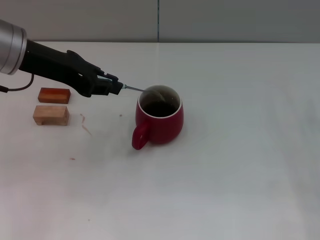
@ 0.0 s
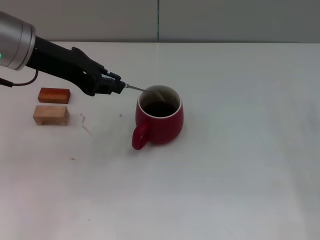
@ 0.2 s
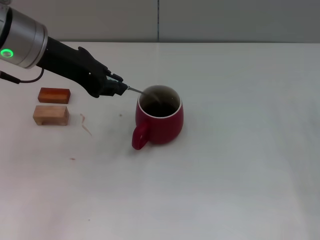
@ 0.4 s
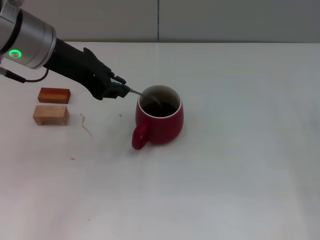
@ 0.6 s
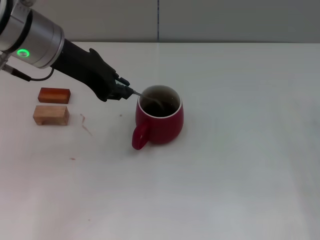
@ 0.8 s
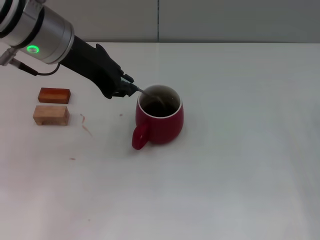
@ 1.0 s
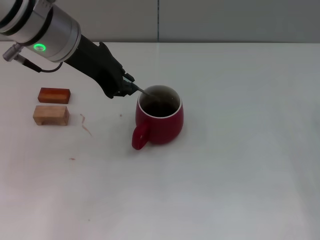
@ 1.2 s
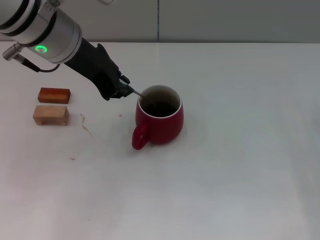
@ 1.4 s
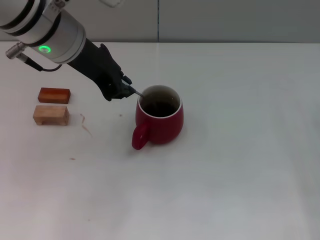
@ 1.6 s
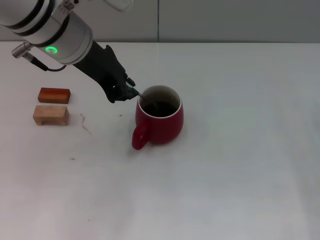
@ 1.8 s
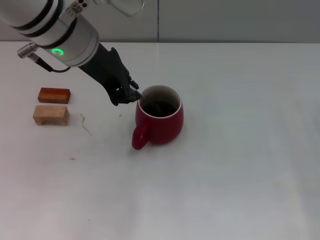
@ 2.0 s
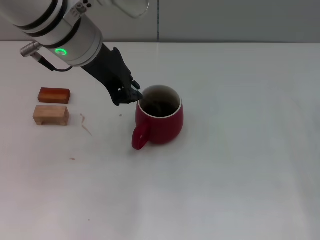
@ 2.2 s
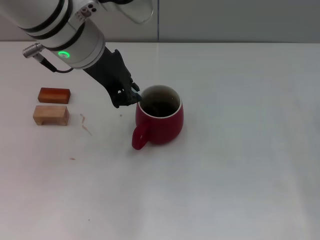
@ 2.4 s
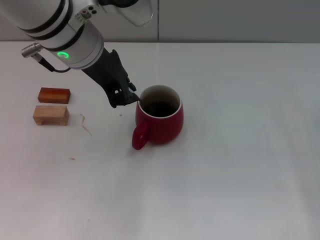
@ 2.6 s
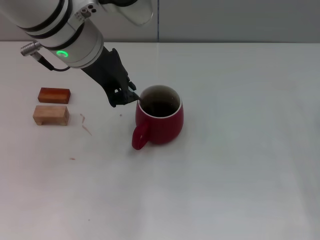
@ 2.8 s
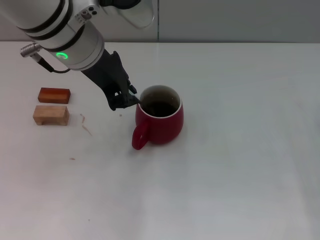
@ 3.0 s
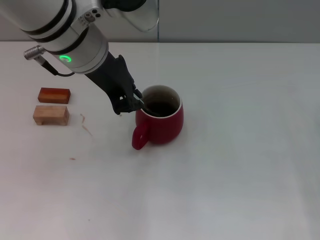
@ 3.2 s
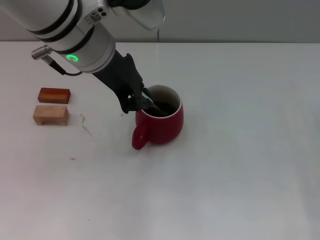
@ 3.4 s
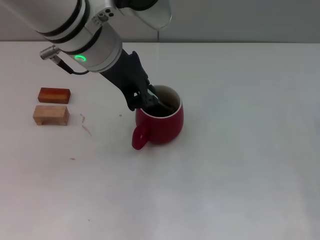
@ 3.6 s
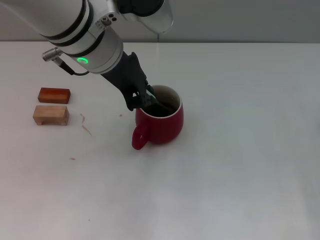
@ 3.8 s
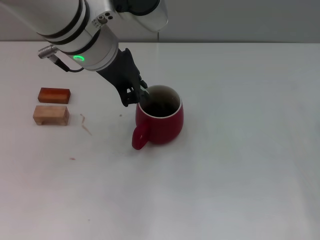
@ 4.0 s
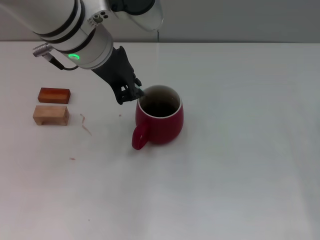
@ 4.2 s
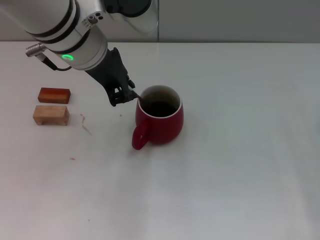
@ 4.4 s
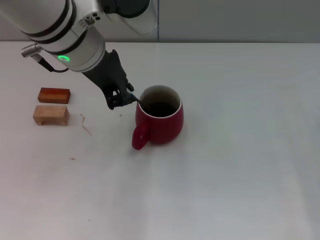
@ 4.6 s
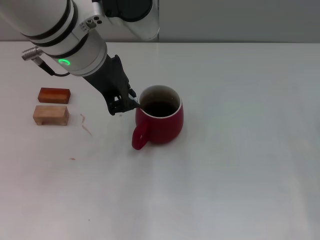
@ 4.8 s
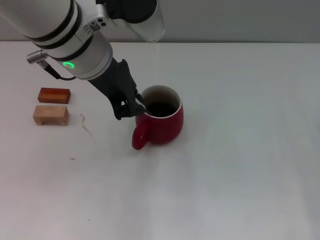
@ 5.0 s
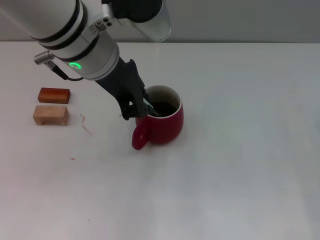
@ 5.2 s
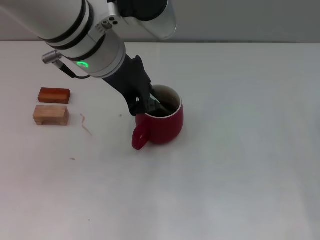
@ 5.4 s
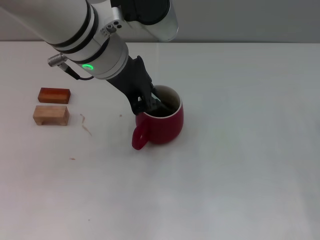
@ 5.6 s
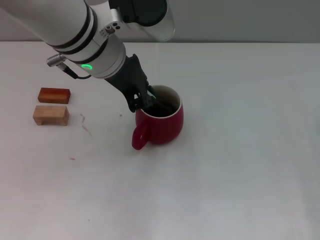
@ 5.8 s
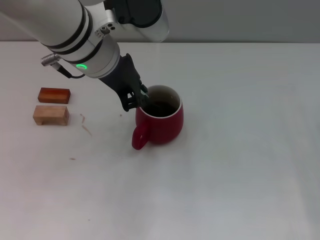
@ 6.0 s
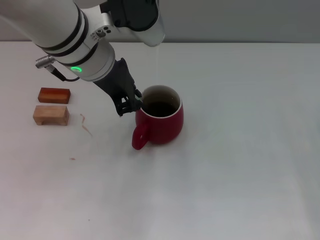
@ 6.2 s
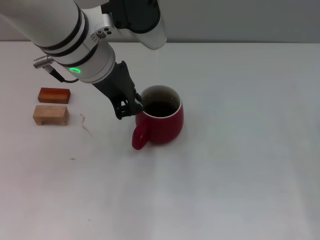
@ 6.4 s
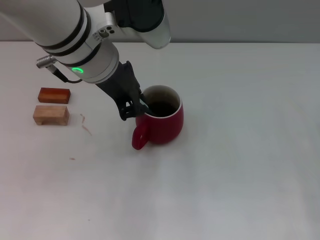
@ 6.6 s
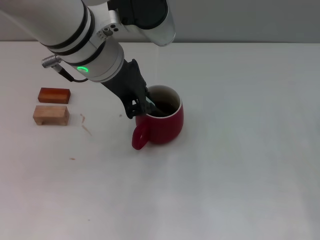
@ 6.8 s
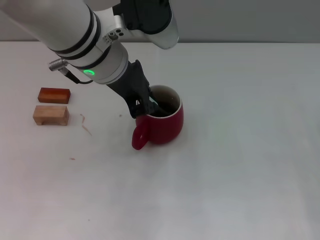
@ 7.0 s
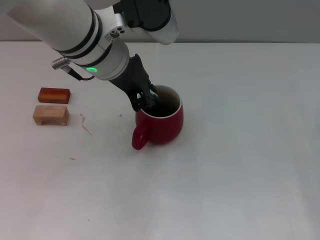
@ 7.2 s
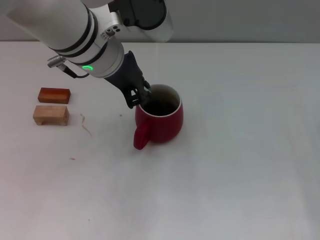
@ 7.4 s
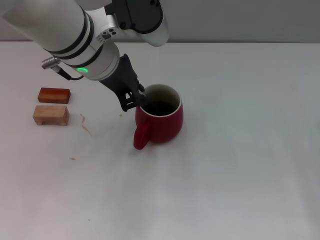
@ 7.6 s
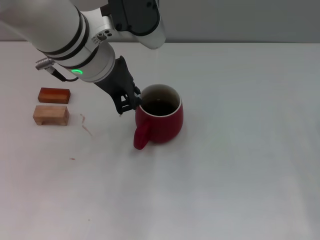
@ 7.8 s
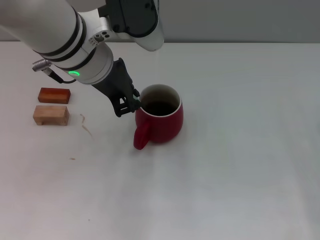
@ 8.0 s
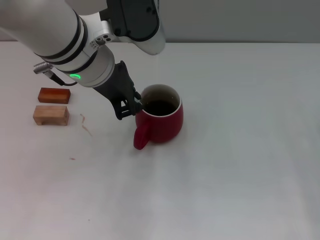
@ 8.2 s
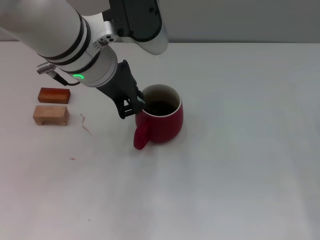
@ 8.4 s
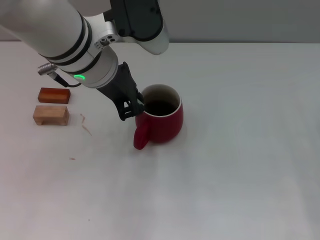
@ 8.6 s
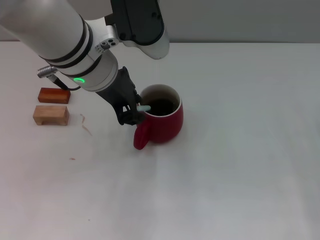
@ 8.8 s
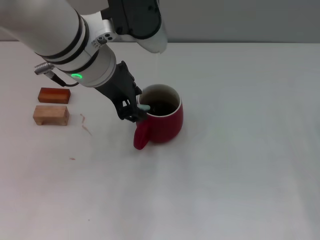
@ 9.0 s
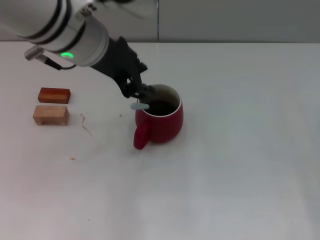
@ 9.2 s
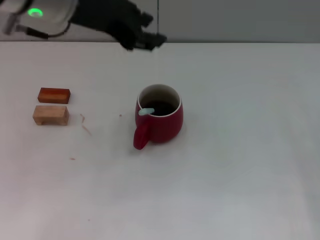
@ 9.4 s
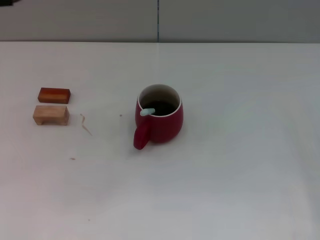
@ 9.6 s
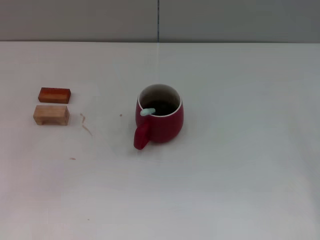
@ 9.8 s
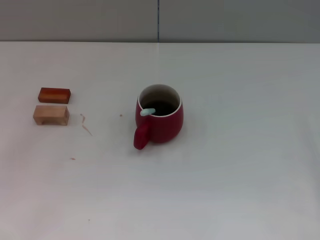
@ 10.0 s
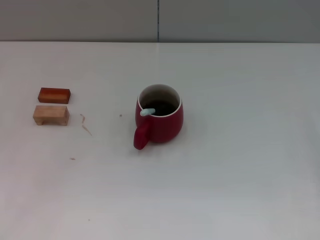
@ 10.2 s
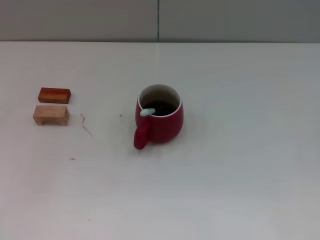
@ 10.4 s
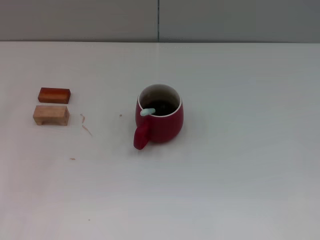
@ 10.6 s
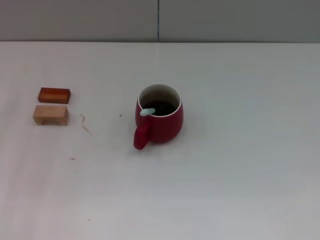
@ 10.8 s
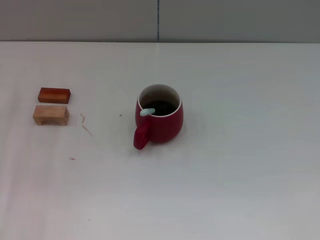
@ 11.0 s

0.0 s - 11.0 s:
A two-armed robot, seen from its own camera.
Task of the whole recording: Move the red cup to the center, lift the blue spoon, stir it three times in the cup, and put the spoon into the cup.
Step, 0.0 s - 9.0 s: Stir the coffee in the cup with the left gripper.
0.0 s - 1.6 s: The left gripper moves to the right, roughly 5 cm.
1.6 s - 7.8 s: The grippers move only a little.
7.8 s - 9.4 s: The left gripper is displaced upward by about 5 cm, and opens.
9.4 s - 11.0 s: The left gripper heads downward and to the left, covering roughly 25 cm. The right gripper goes roughly 5 cm to the right.

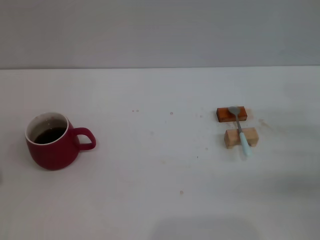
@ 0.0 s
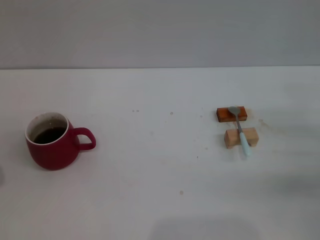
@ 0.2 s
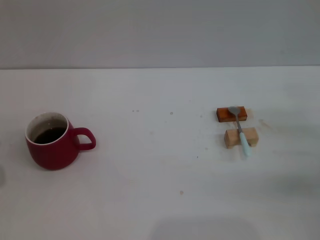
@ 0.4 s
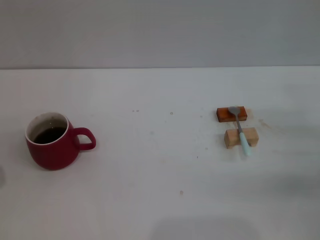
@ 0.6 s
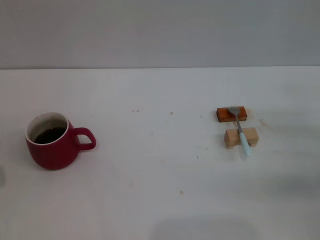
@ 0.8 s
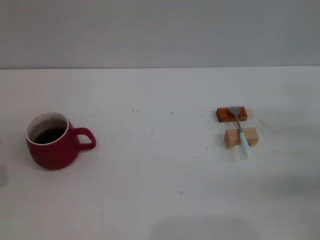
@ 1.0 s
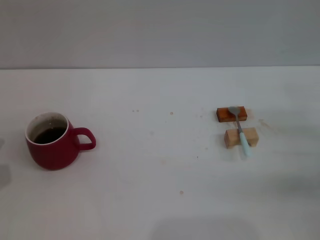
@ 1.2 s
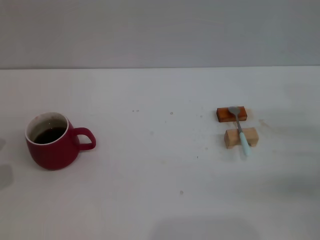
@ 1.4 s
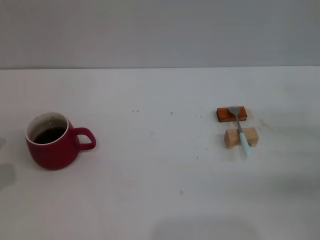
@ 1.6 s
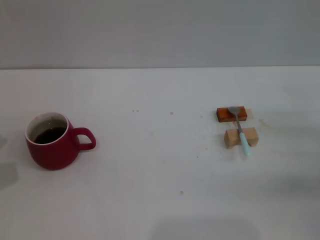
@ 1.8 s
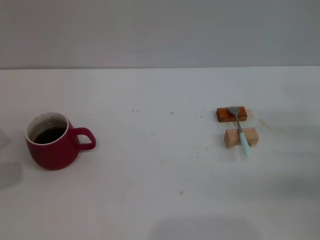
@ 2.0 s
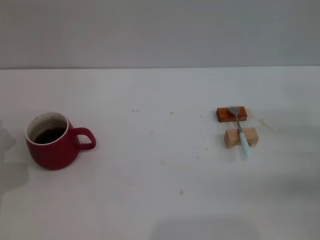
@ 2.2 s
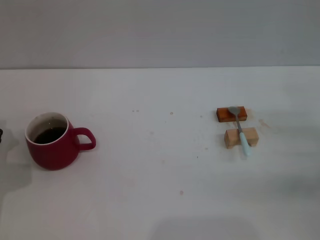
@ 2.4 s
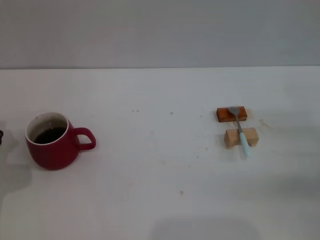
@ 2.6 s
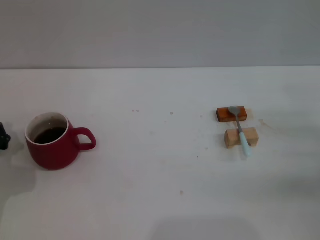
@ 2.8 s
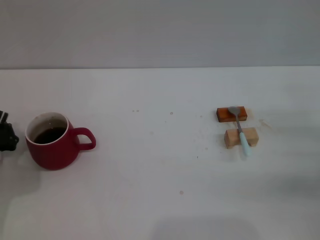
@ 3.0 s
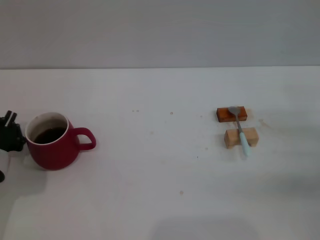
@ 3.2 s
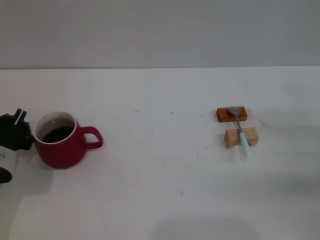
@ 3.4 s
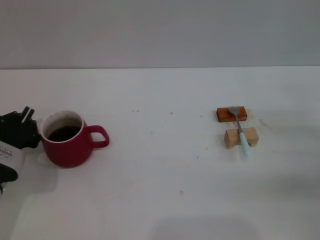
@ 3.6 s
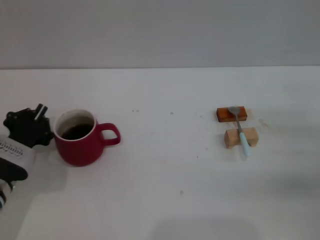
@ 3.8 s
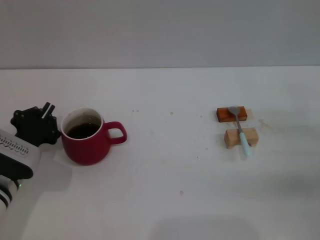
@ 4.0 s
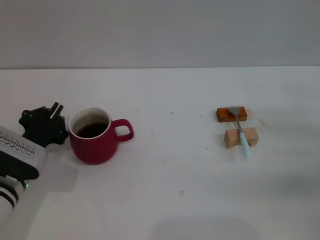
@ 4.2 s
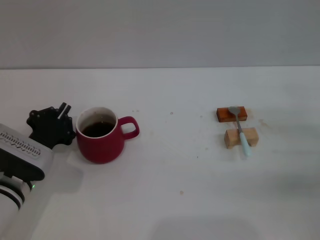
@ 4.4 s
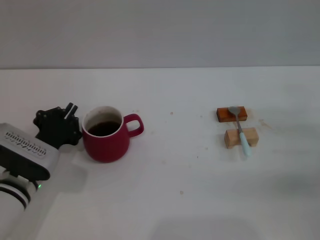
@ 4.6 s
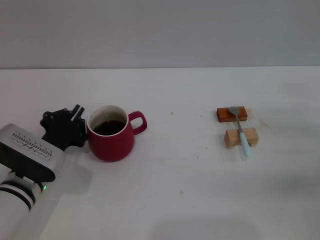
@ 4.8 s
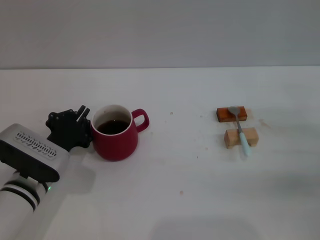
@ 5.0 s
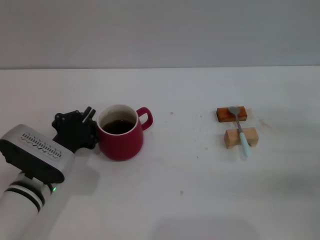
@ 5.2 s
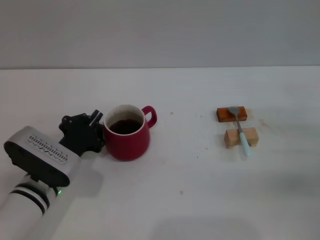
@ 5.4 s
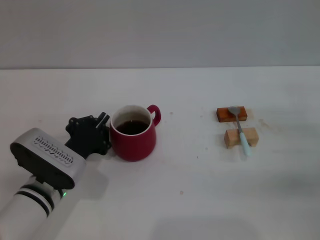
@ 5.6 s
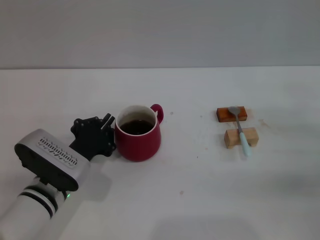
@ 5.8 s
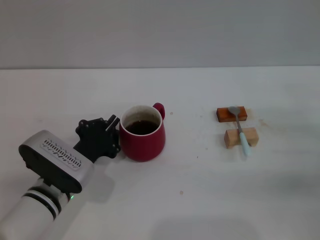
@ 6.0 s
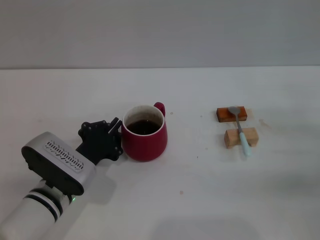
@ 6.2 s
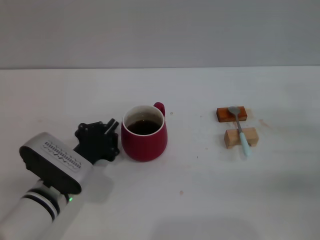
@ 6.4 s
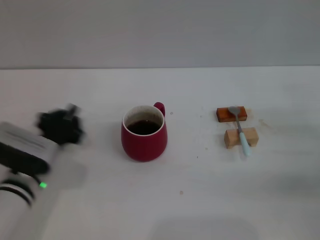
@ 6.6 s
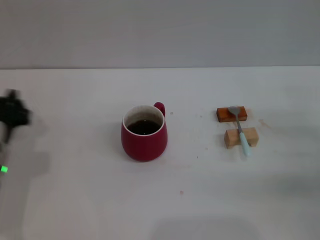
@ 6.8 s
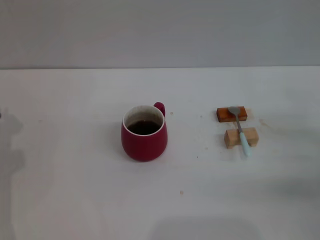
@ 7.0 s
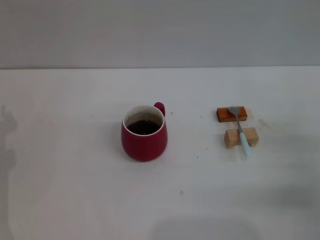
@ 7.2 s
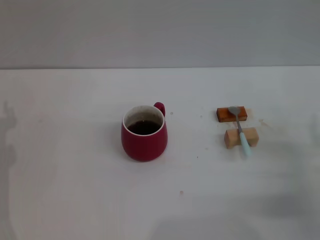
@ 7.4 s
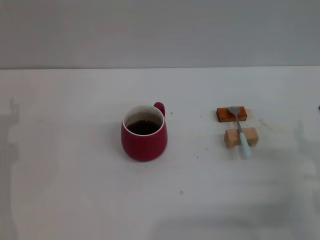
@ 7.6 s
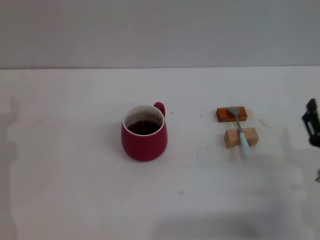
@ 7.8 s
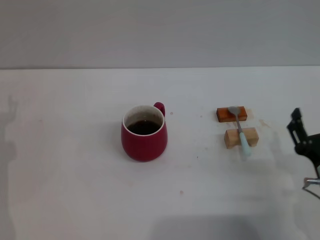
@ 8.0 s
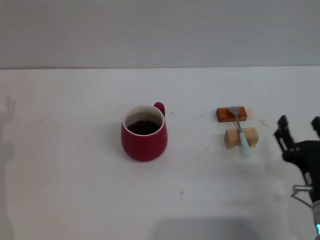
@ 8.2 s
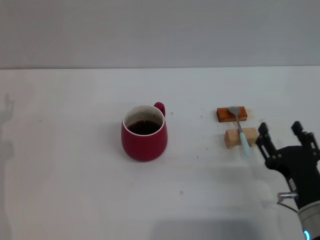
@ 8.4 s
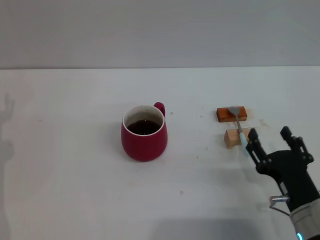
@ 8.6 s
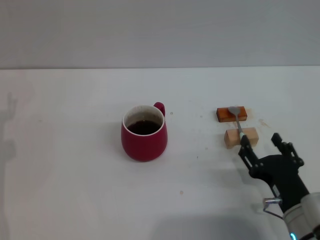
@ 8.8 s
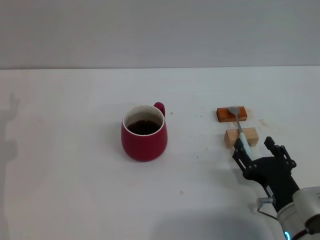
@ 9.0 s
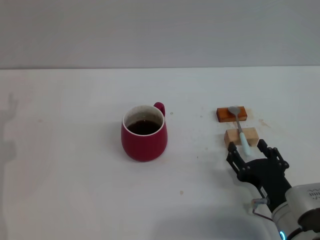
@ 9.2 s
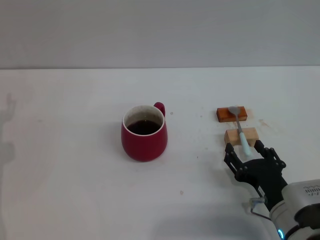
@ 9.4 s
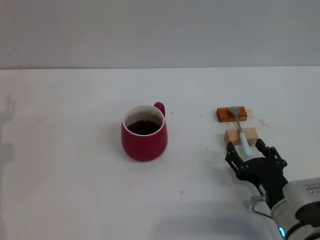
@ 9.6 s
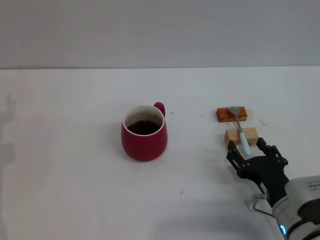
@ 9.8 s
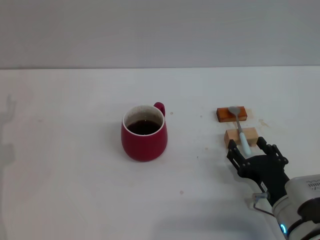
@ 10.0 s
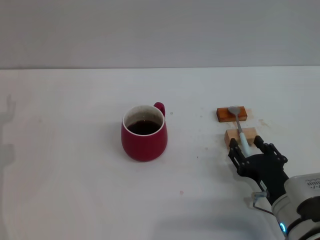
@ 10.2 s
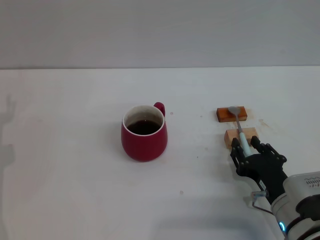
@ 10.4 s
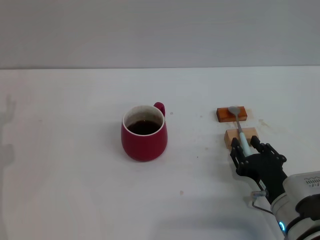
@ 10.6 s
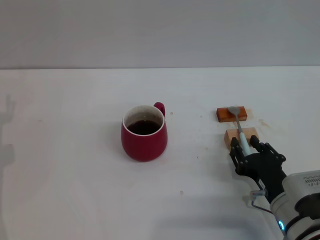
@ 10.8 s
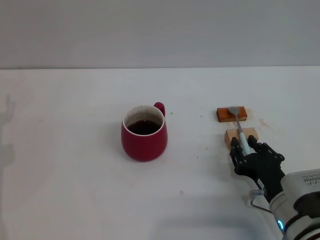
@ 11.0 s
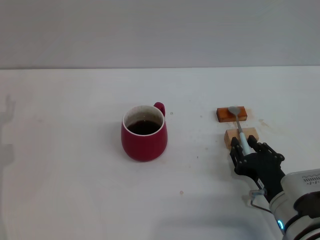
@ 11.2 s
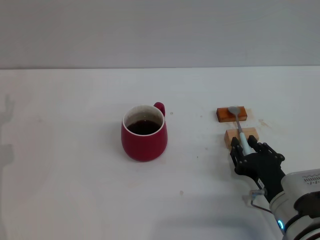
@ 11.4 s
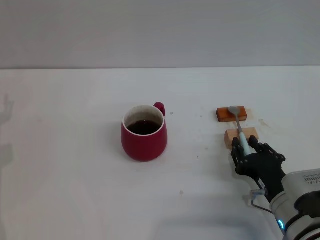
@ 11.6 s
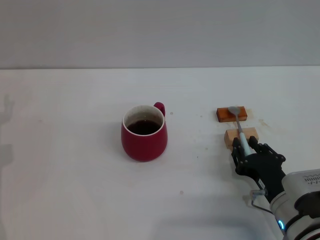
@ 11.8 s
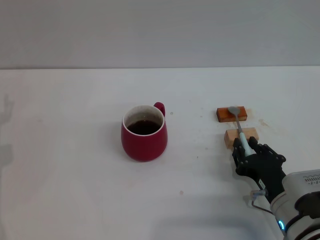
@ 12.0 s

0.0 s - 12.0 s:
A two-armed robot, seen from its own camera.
Task of the whole recording: Move the red cup to the center, lift the blue spoon, stir it three times in the cup, and put the spoon into the cup.
Step, 0.8 s - 6.4 s: Move the cup in the center of the table with left gripper.
3.0 s - 4.4 s: The left gripper goes approximately 5 cm to the right.
4.4 s - 6.0 s: The left gripper is displaced to the right by some 5 cm.
6.0 s - 7.6 s: The left gripper goes roughly 15 cm to the left, and opens its fingers. The right gripper travels to the left and backward by some 10 cm.
7.6 s - 9.0 s: The right gripper travels to the left by some 10 cm.
9.0 s - 10.4 s: There are only small adjustments of the grippers.
10.4 s - 12.0 s: Neither gripper changes place.
